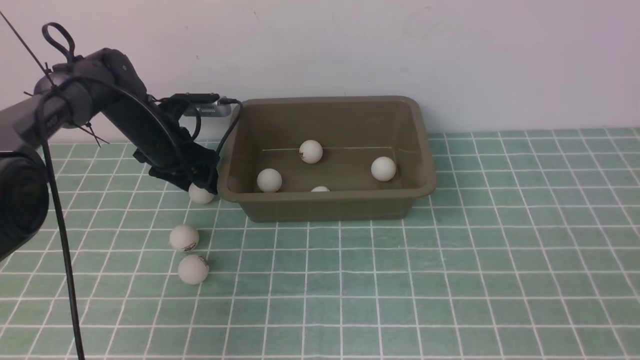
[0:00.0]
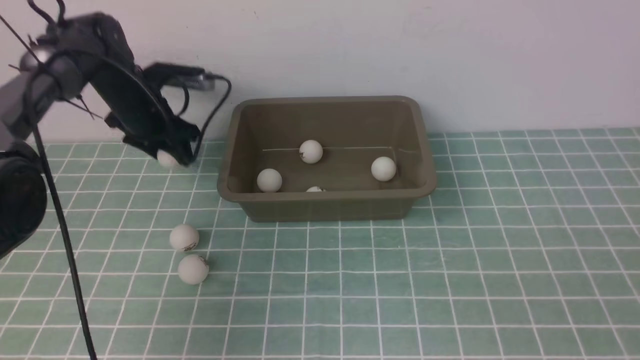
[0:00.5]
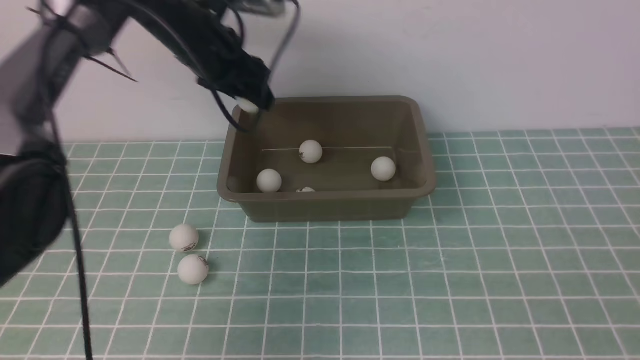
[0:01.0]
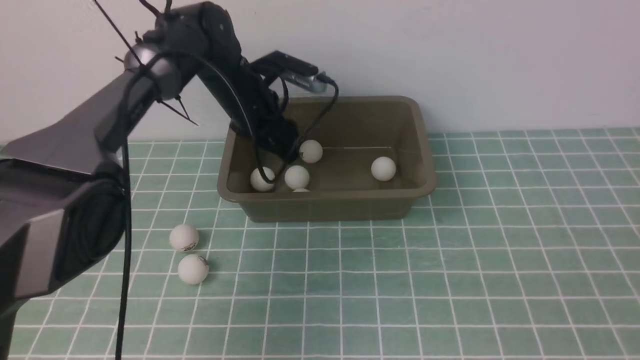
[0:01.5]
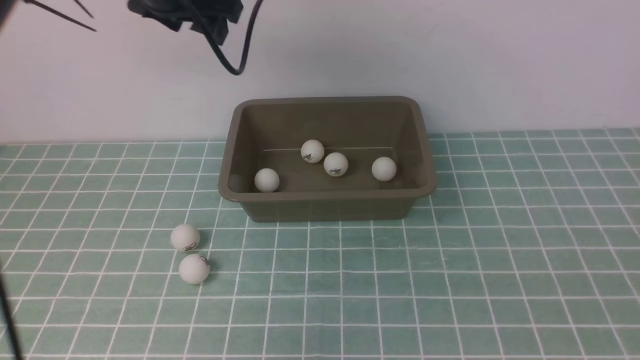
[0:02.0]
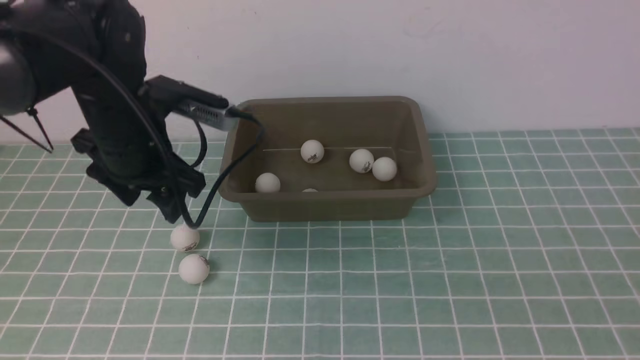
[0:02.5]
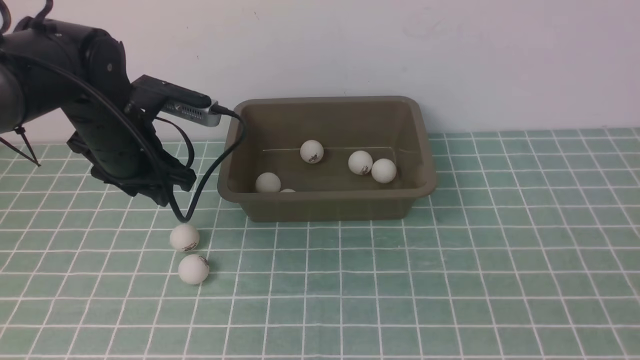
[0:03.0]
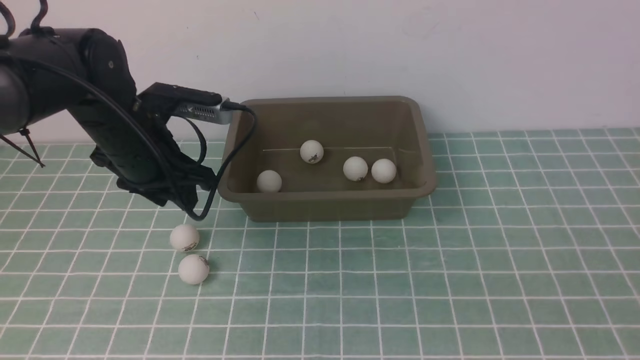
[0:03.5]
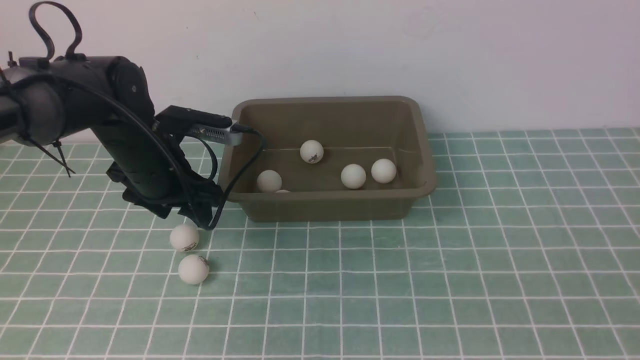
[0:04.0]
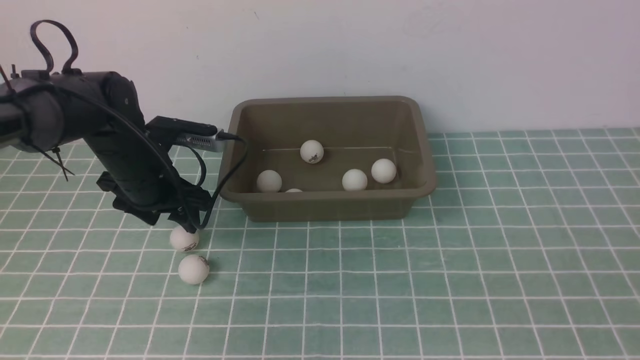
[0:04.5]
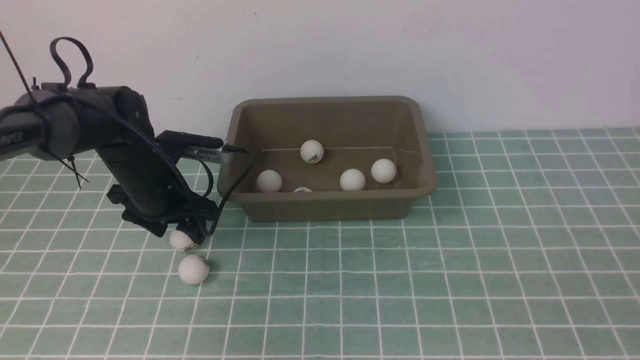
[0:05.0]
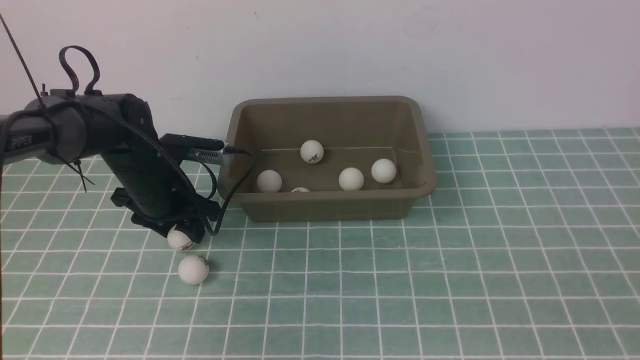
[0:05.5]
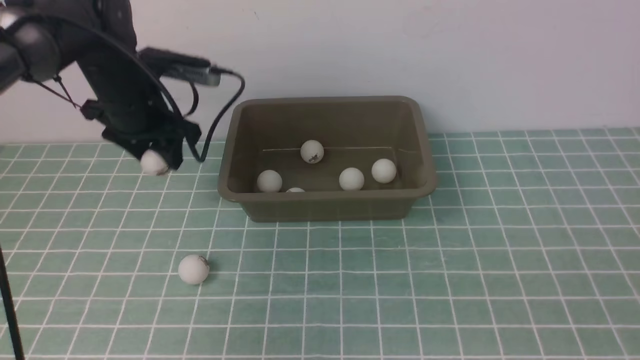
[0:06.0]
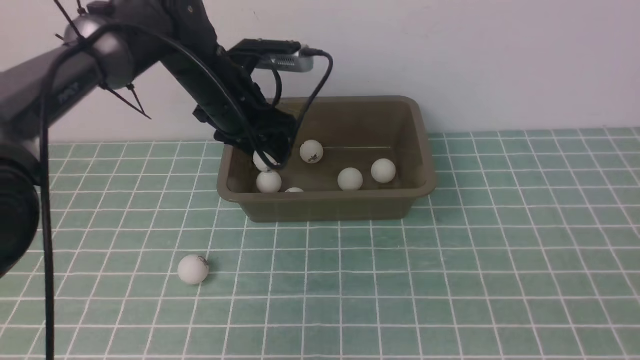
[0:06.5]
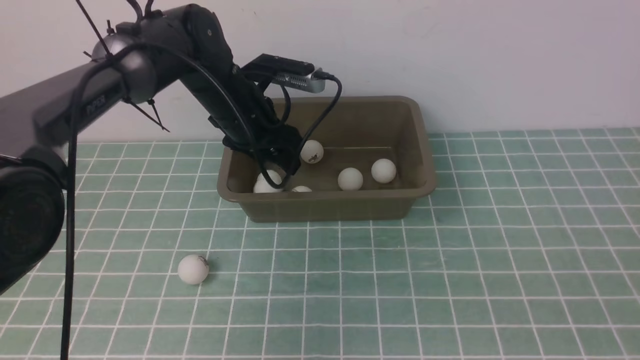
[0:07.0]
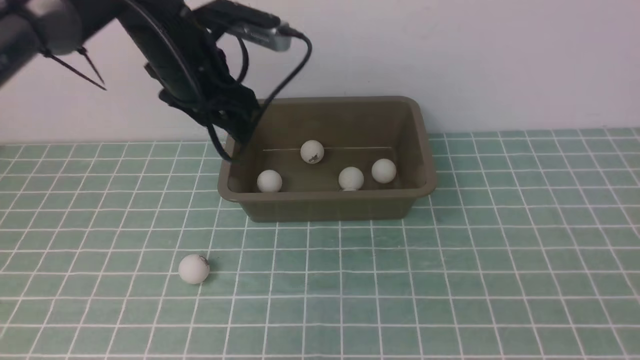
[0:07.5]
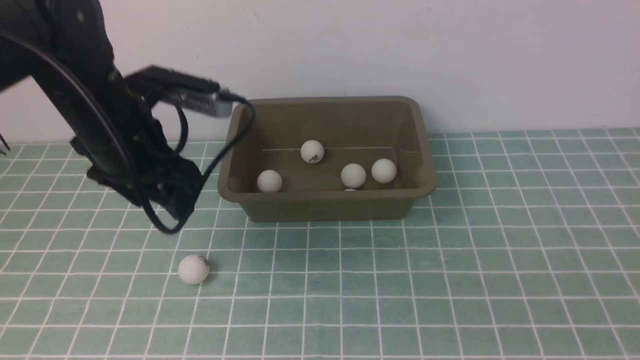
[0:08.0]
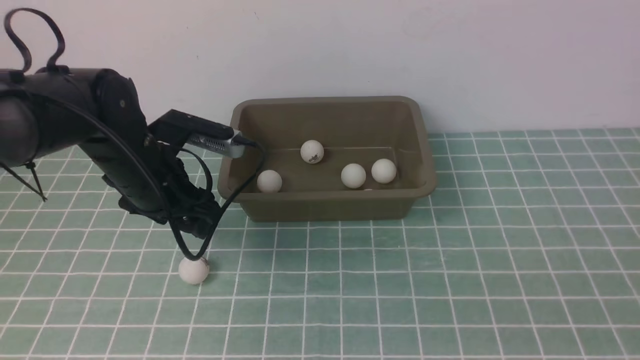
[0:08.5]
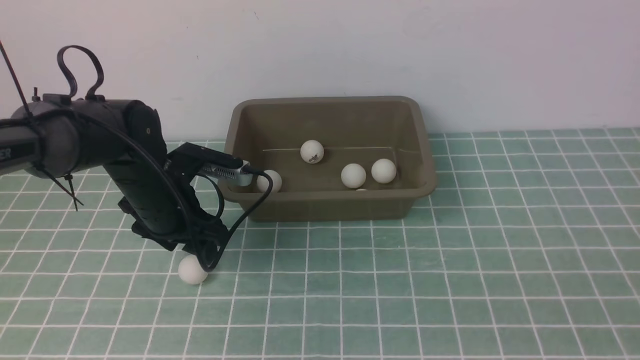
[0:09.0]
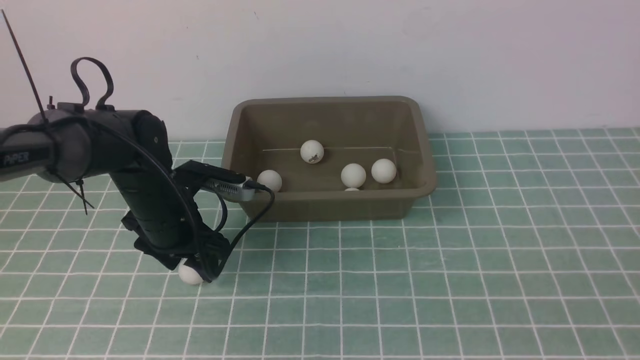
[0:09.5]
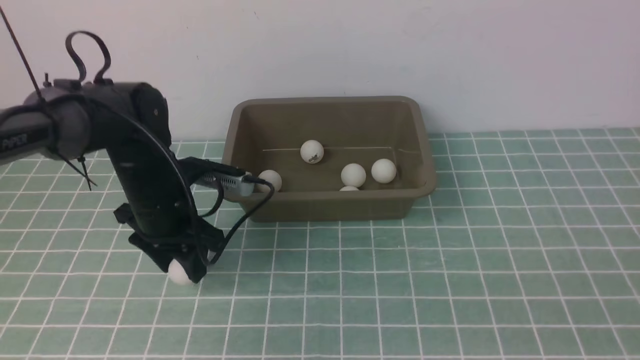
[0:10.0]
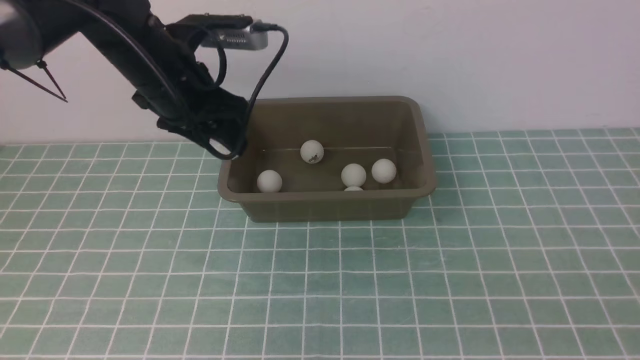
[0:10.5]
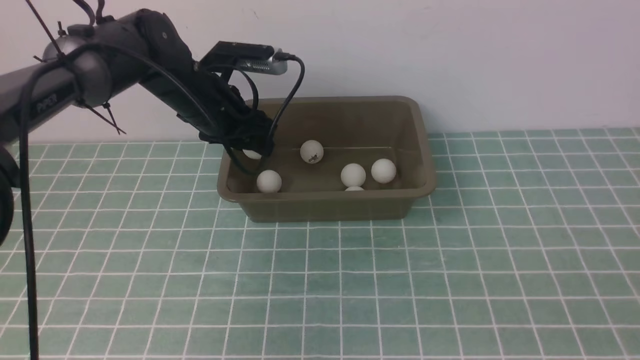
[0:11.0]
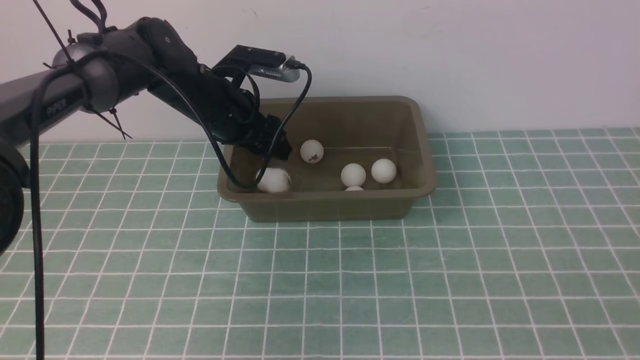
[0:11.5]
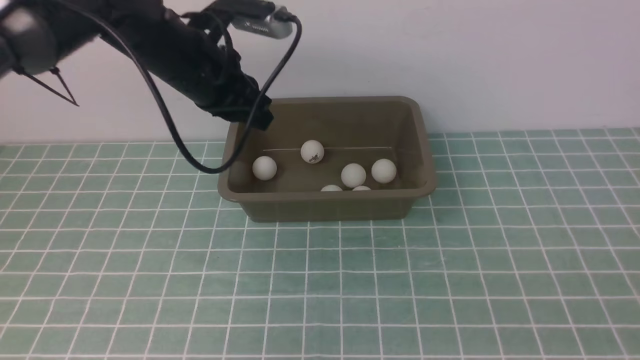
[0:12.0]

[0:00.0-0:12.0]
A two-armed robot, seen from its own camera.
Step, 0:01.0 to 0:01.5: use the left arm to put the table tennis ball into the box.
Step, 0:02.0 to 0:05.5: use the left arm to clamp the table tennis ball closest to it.
Step, 0:06.0 to 0:07.0: use the left arm to put the table tennis ball into the box.
Step, 0:07.5 to 0:10.0: use the left arm to clamp the table tennis ball closest to it.
Step, 0:10.5 to 0:11.5: use the left arm to put the table tennis ball into the box.
0:00.0 to 0:02.0: The left gripper goes some 25 cm upward and backward.
0:02.0 to 0:04.0: The left gripper heads downward, covering approximately 15 cm, and closes, then reopens.
0:04.0 to 0:06.0: The left gripper changes place by some 5 cm.
0:06.0 to 0:08.0: The left gripper travels backward by some 10 cm.
0:08.0 to 0:10.0: The left gripper heads downward, covering approximately 5 cm.
0:10.0 to 0:12.0: The left gripper moves up and down over approximately 20 cm, changing direction 2 times, and closes up.

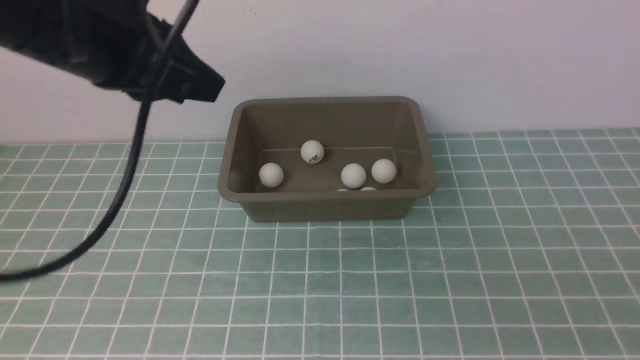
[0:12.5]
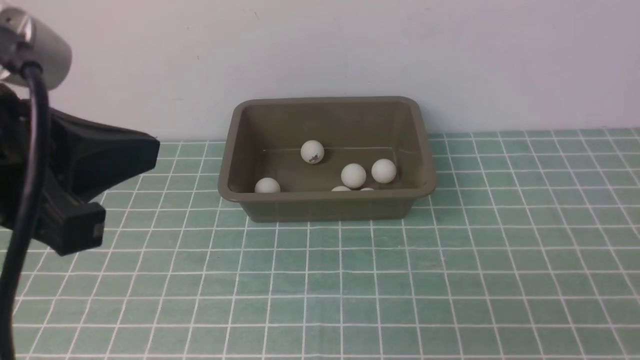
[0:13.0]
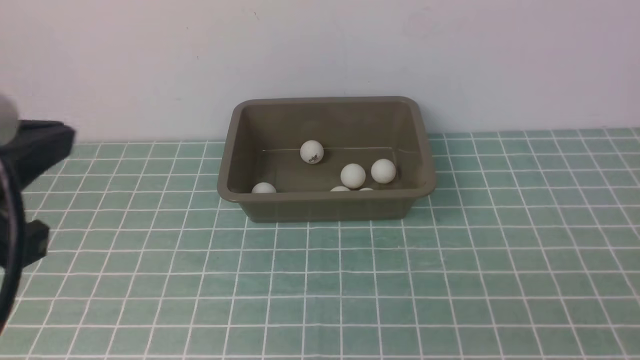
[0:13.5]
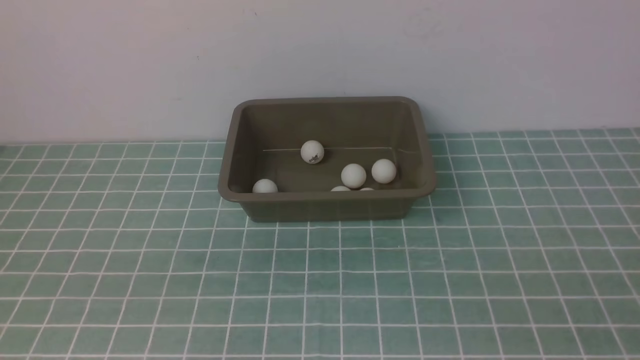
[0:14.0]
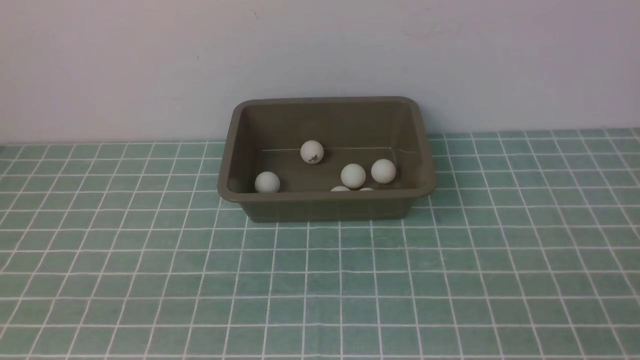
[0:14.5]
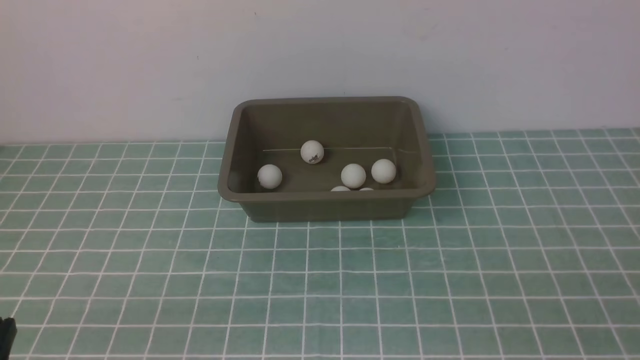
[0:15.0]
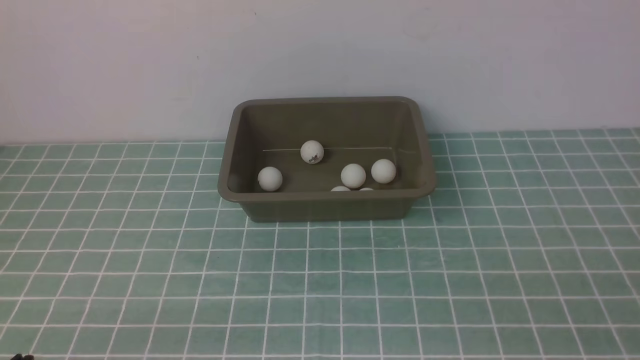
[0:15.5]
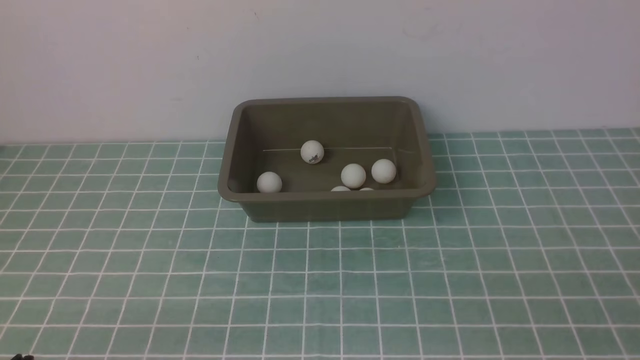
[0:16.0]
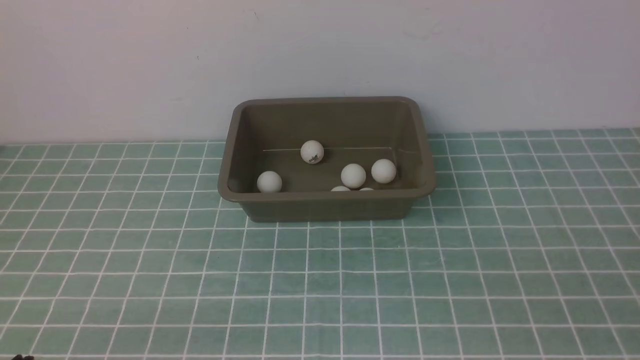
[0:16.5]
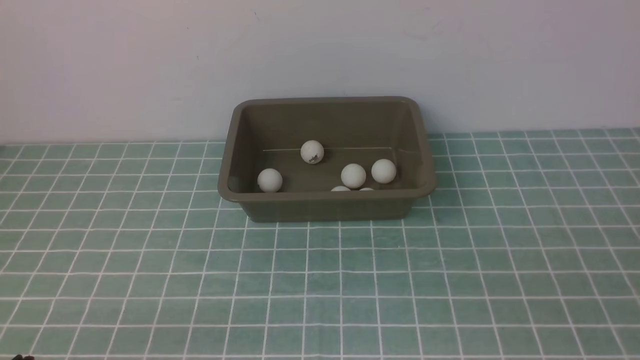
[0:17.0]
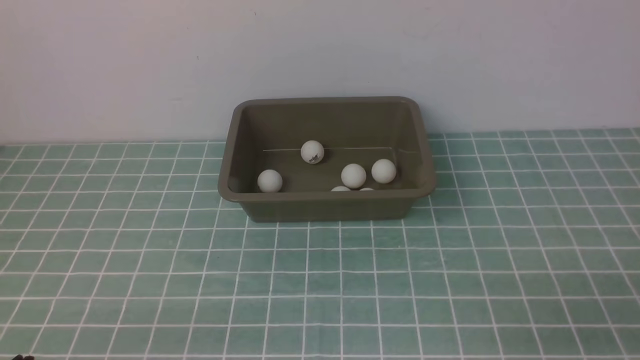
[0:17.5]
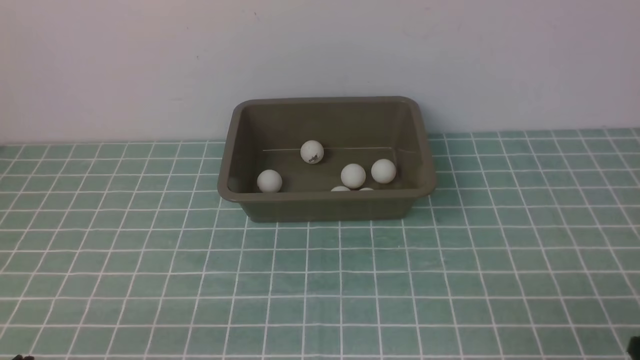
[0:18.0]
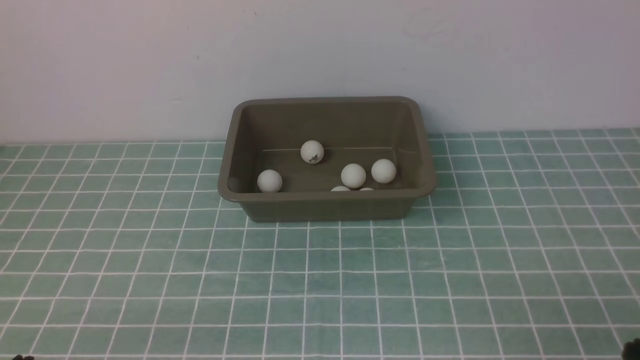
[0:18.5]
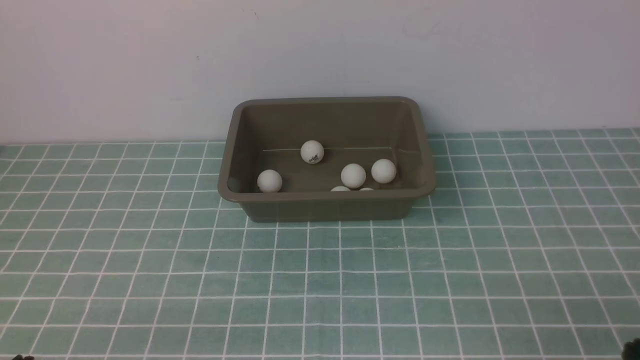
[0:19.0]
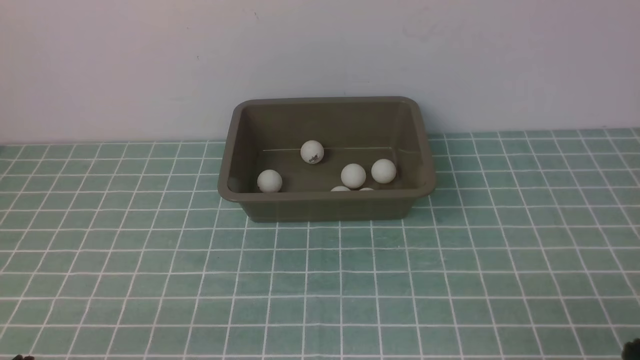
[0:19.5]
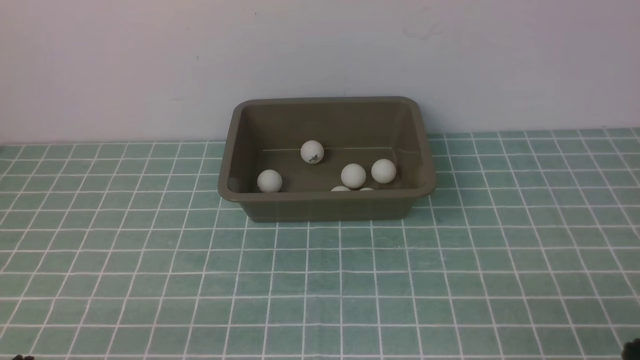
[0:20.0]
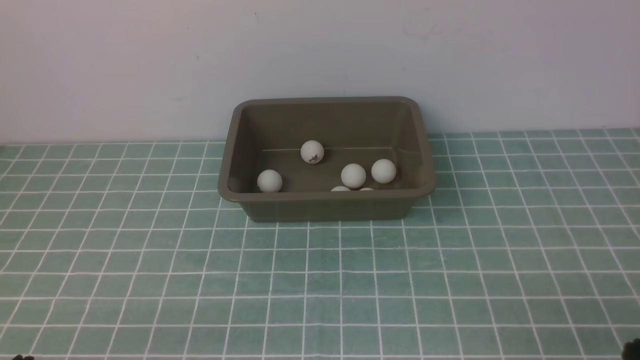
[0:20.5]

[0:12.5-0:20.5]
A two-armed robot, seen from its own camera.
0:12.5 to 0:14.5: The left gripper travels downward and backward by about 25 cm.
0:18.5 to 0:20.5: Both grippers stay put.
